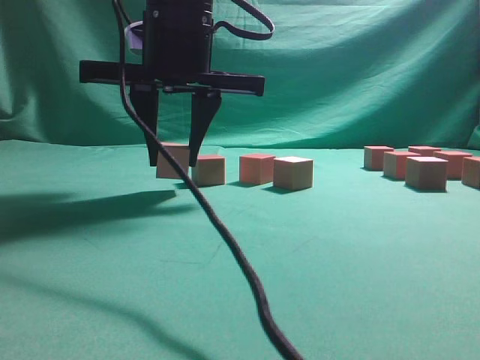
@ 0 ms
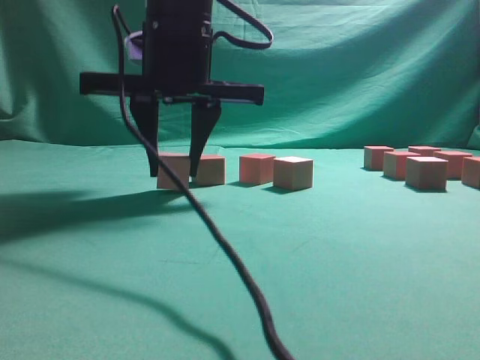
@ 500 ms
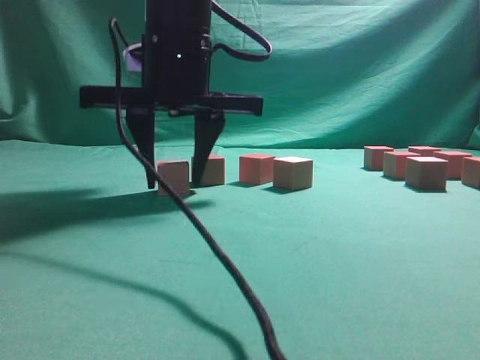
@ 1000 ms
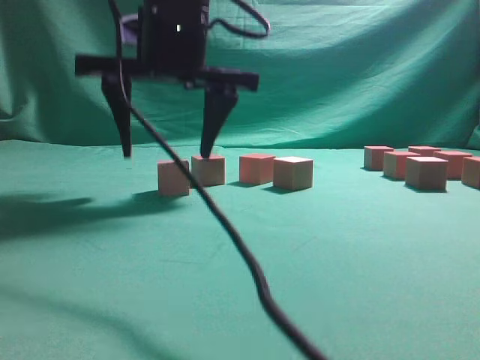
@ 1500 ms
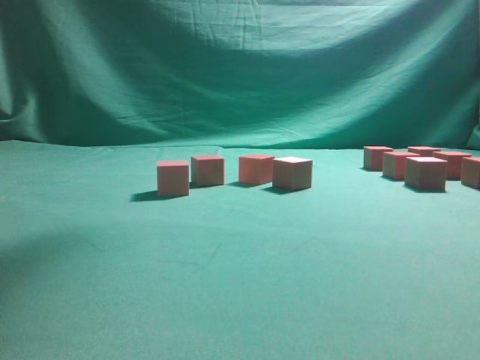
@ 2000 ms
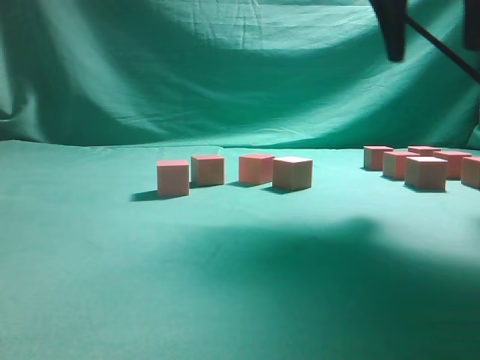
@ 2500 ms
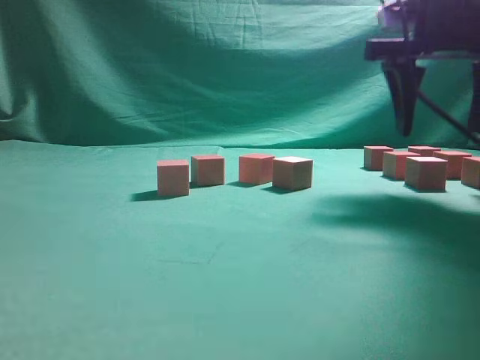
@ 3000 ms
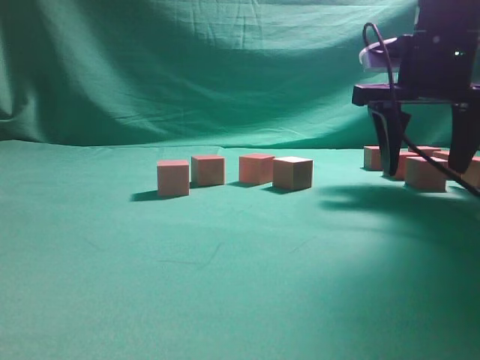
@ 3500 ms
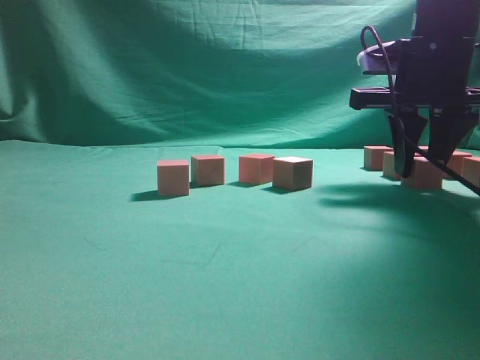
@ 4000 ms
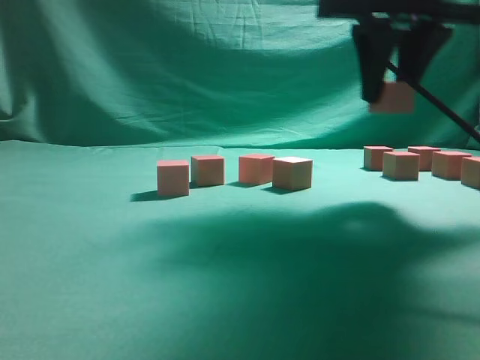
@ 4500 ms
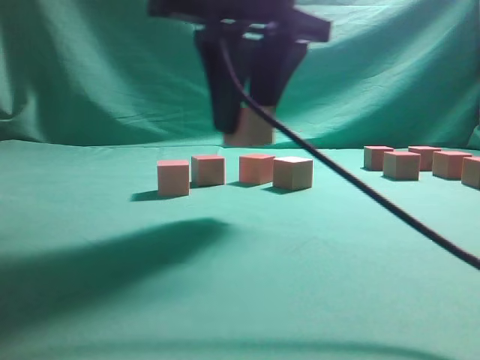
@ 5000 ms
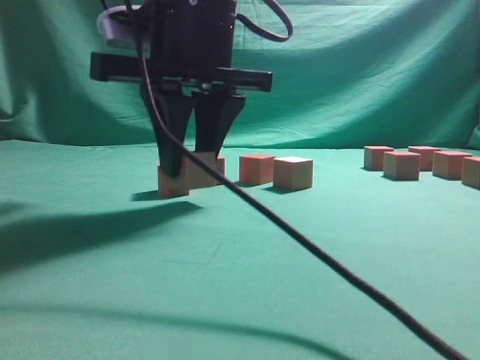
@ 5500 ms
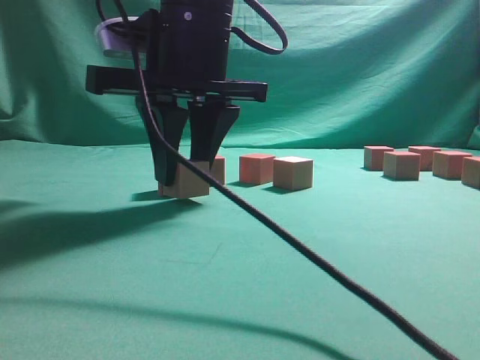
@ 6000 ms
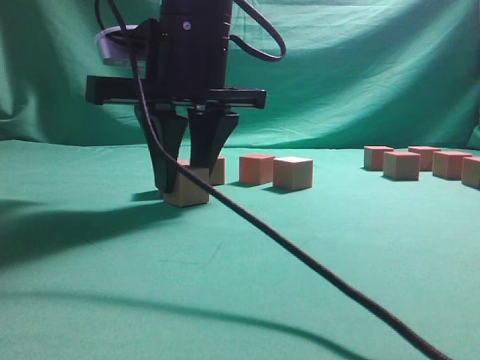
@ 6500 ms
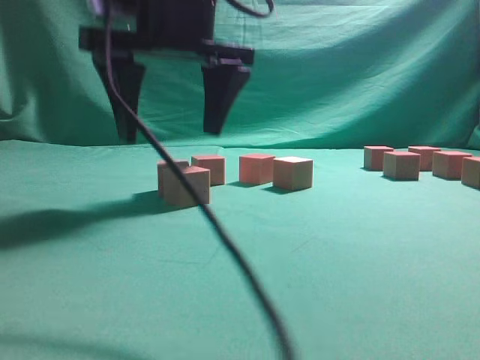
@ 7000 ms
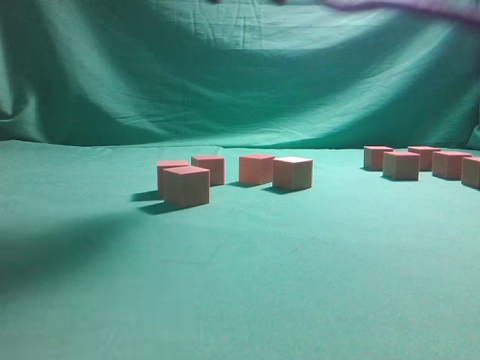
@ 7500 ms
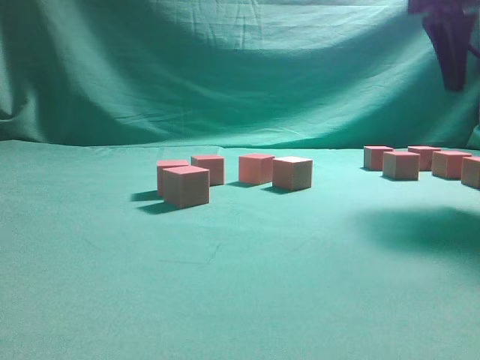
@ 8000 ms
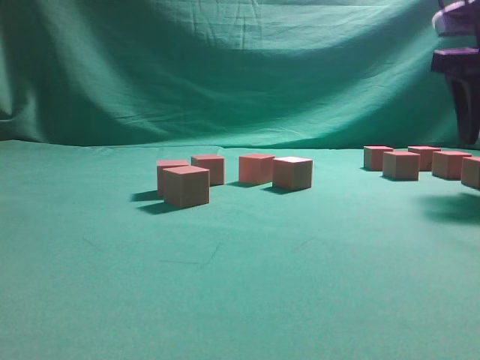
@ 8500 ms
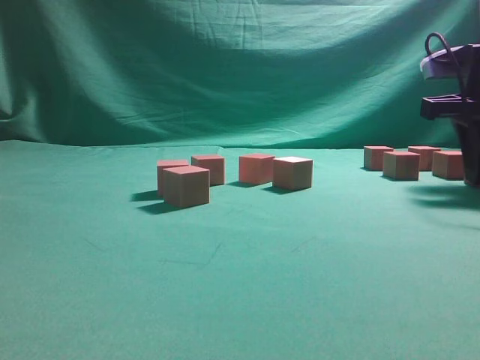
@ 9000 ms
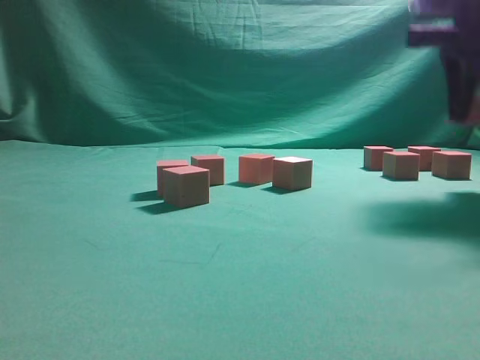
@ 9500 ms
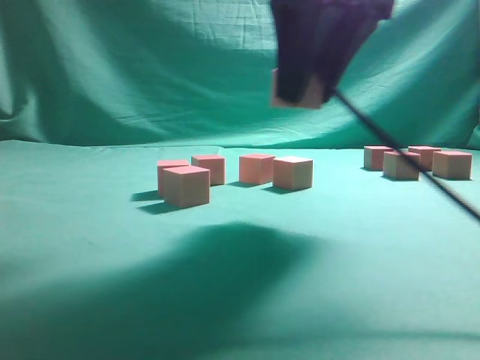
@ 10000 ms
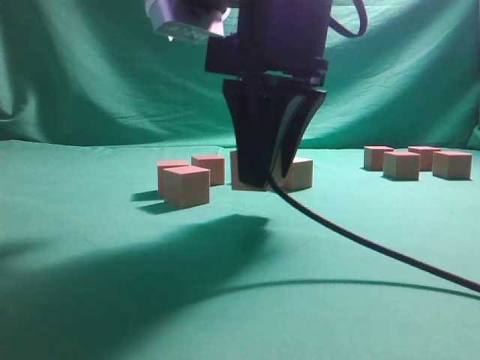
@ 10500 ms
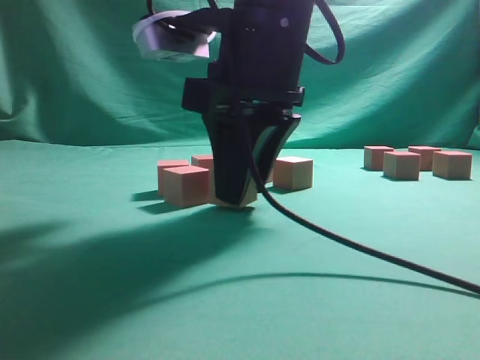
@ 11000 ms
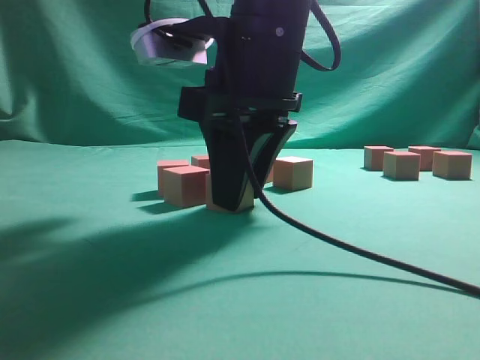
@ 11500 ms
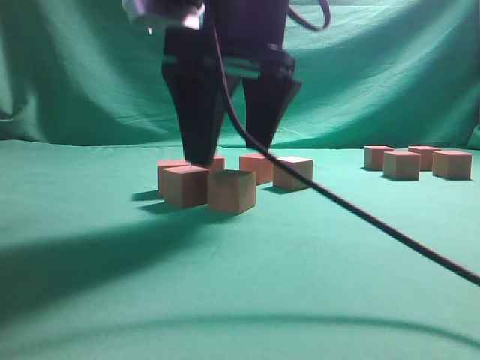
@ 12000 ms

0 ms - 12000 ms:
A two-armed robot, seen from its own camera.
Task of the whole recording: pick up the multiple cubes in two columns one by one and place them in another position on the table.
Step, 2000 ms - 4000 ms: Pick up the block on the table.
Step, 4500 ms - 6500 ms: Place the block at the correct position to assemble the letter S.
Step, 7500 ms - 9000 ms: Pick up the block on the table.
0 ms - 2000 ms: The right gripper goes approximately 20 cm upward and to the right, and opens.
2000 ms - 4000 ms: The right gripper travels downward and to the right by roughly 25 cm, and closes.
4000 ms - 6000 ms: The right gripper shifts about 25 cm to the left.
6000 ms - 8000 ms: The right gripper travels to the right by approximately 25 cm, and opens its fingers.
8000 ms - 10000 ms: The right gripper shifts roughly 15 cm to the left and backward, and closes.
10000 ms - 12000 ms: The right gripper heads to the left, covering some 5 cm, and opens.

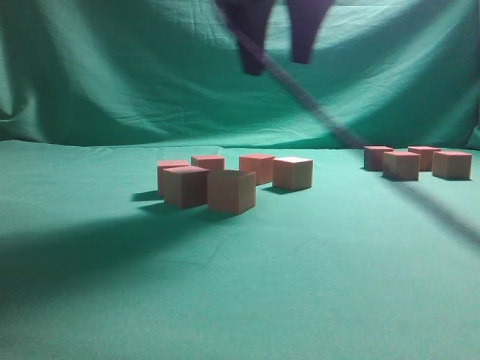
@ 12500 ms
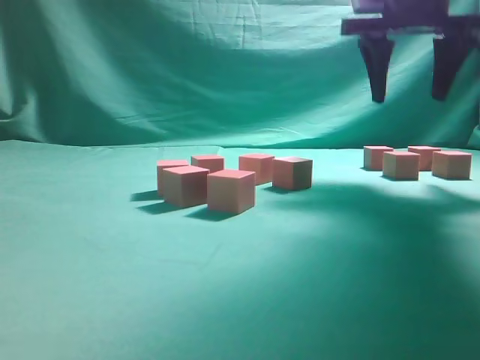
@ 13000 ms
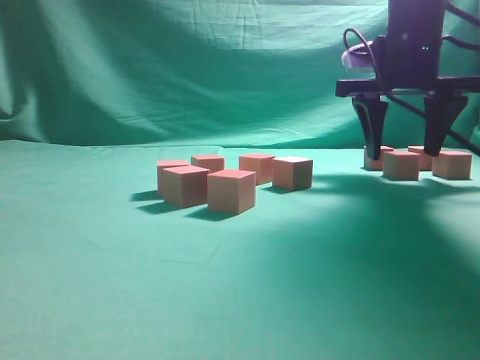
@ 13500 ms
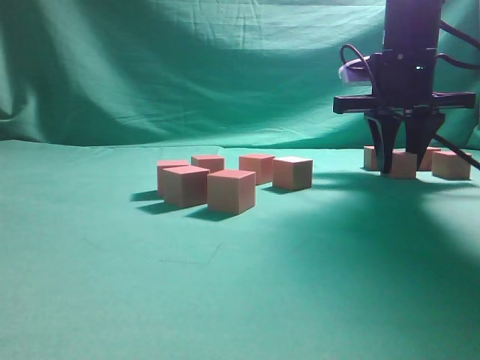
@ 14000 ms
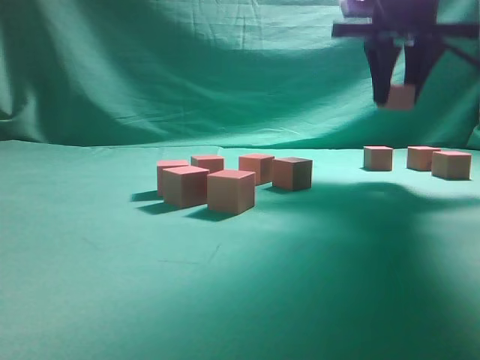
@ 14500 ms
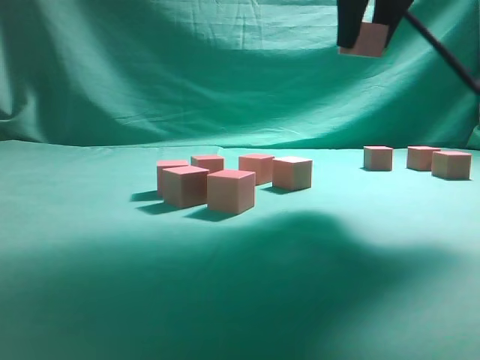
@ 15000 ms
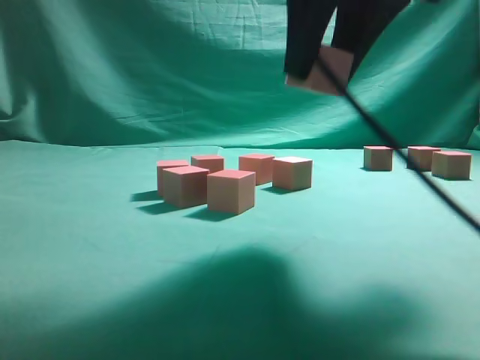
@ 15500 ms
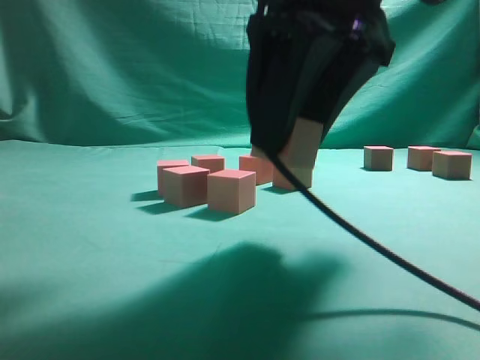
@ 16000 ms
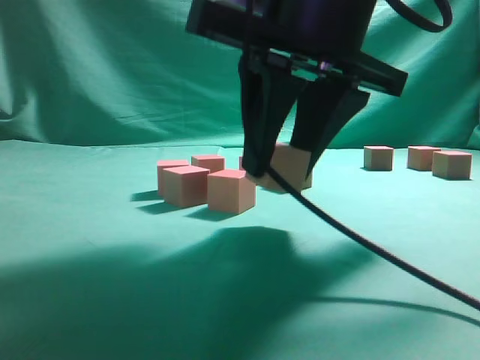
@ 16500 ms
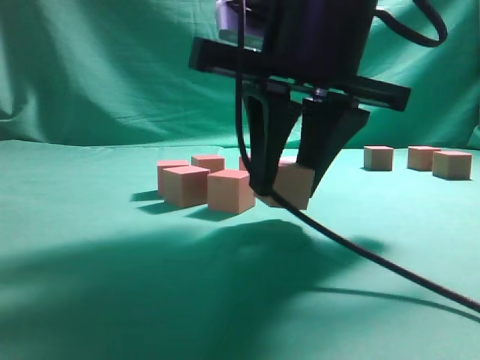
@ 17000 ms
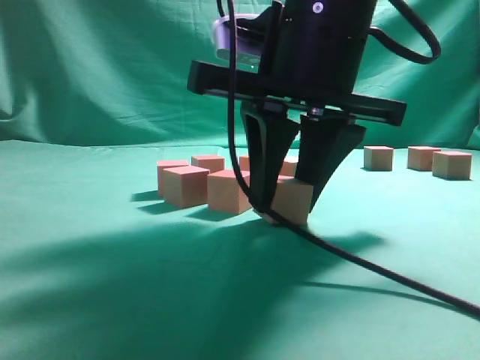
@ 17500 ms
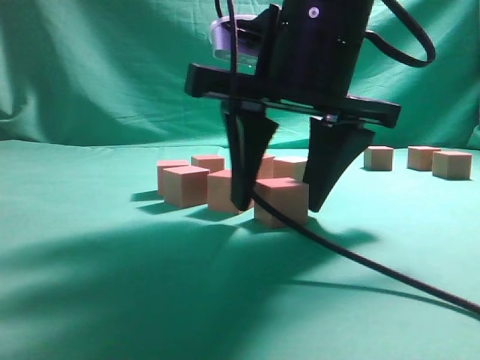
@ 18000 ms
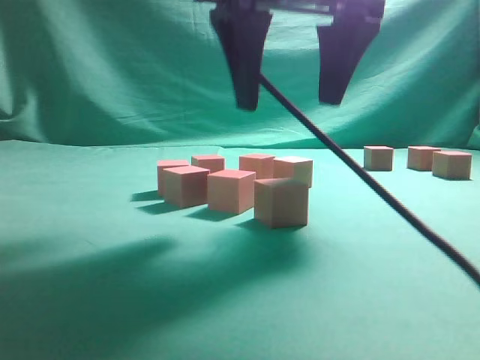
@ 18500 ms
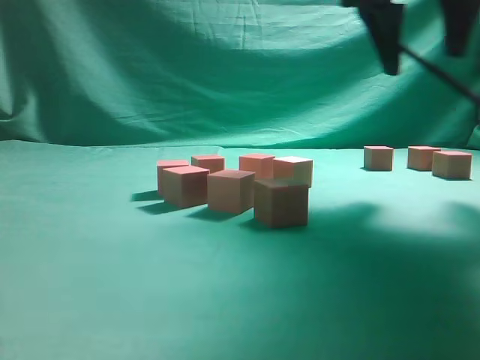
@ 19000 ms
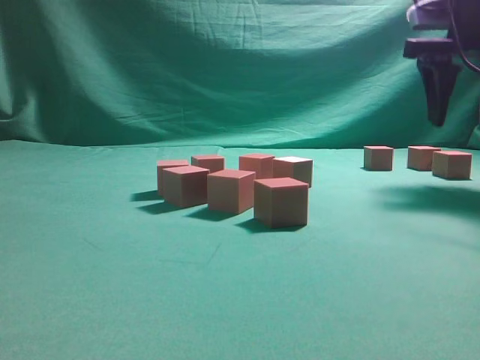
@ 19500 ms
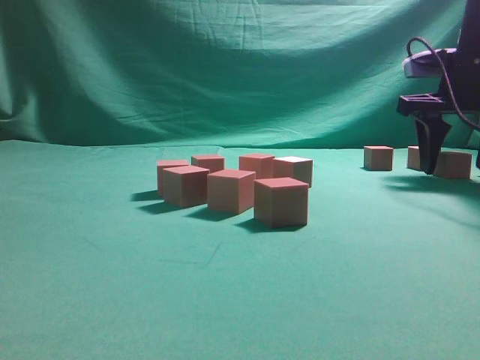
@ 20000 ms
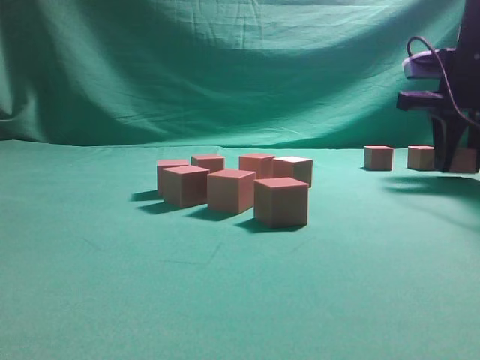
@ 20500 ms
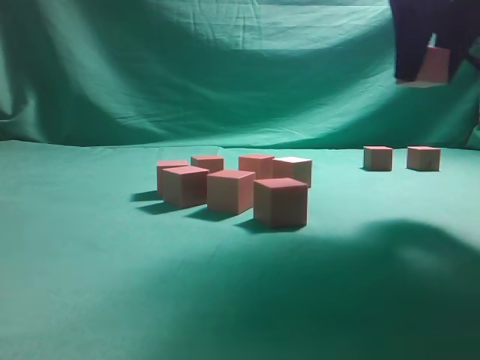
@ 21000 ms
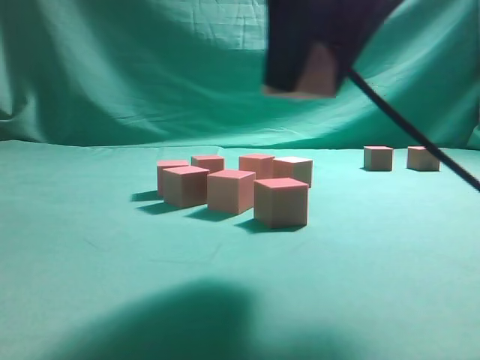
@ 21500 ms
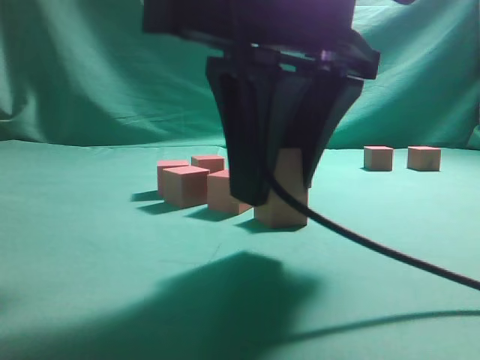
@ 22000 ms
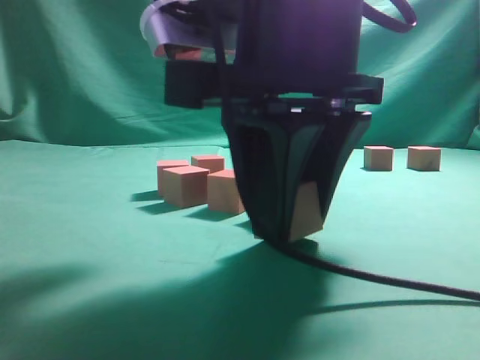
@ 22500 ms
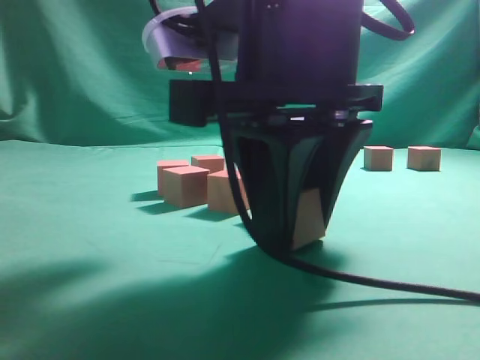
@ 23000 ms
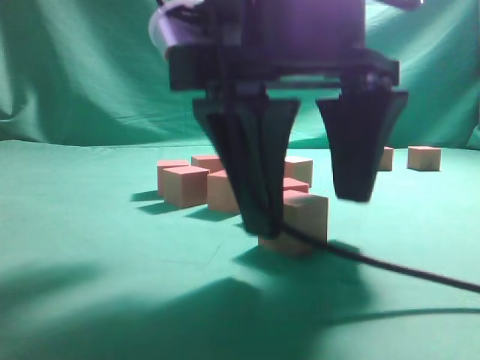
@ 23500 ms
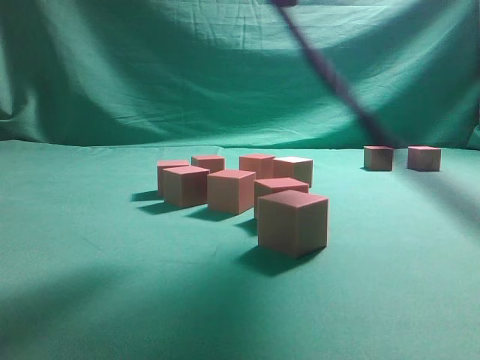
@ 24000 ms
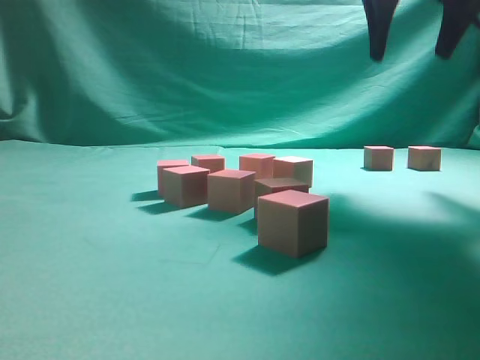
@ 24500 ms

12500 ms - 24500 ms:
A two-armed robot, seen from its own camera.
Task of the whole recording: pick up the multiple cubes in two columns one by one and place them in another position on the table.
Step, 12500 ms - 14000 ms: Pick up the block on the table.
Step, 14500 ms - 18000 ms: Place the block at the correct position to assemble the letter S.
Step, 18500 ms - 20500 ms: Pick up the block on the table.
Step, 21000 ms - 23500 ms: Place the block at the correct position to assemble the letter S.
12500 ms - 14500 ms: The right gripper goes roughly 15 cm to the right and forward, and closes up.
14500 ms - 16500 ms: The right gripper shifts some 20 cm backward and to the left.
16500 ms - 18500 ms: The right gripper travels upward by approximately 5 cm, and opens its fingers.
18500 ms - 20500 ms: The right gripper heads to the right and forward, covering approximately 25 cm, and closes up.
20500 ms - 22500 ms: The right gripper is displaced to the left and backward by approximately 30 cm.
22500 ms - 24500 ms: The right gripper travels forward, to the right and upward by approximately 25 cm, and opens its fingers.

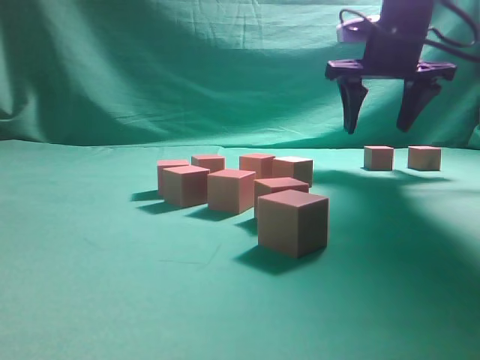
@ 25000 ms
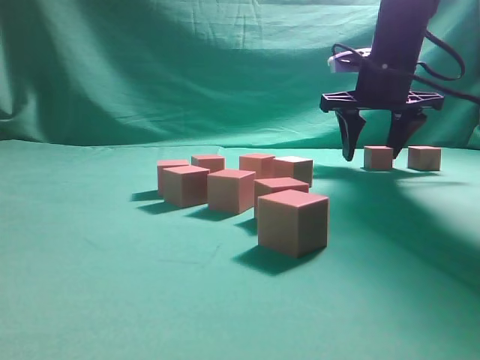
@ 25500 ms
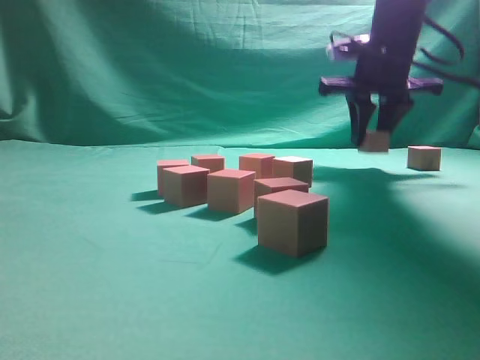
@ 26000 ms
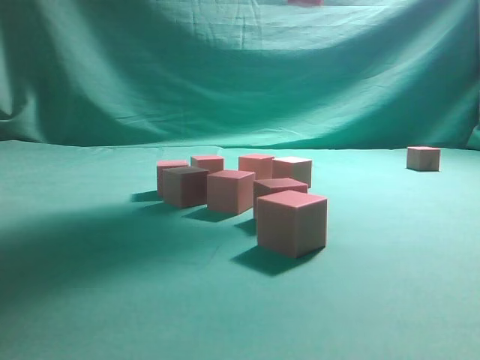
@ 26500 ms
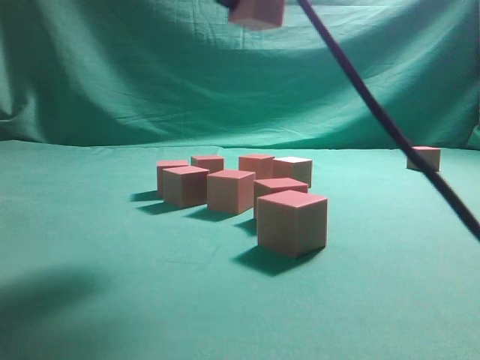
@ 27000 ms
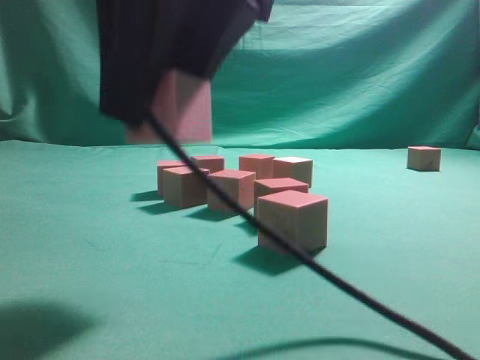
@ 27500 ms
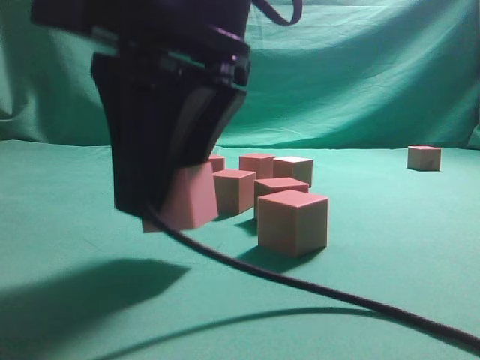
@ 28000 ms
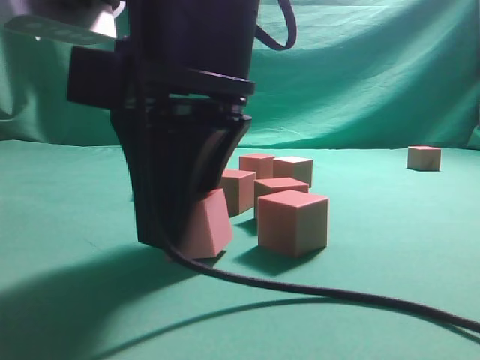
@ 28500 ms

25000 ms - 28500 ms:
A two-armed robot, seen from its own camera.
Task of the whole recording: pick up the multiple cubes in two columns one by one and place them in another position on the table.
25000 ms - 27000 ms: The right gripper goes about 25 cm backward, to the left and upward, and closes its fingers.
27000 ms - 28500 ms: The right gripper heads downward, to the left and backward, covering roughly 15 cm.
